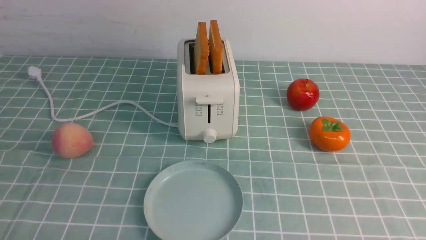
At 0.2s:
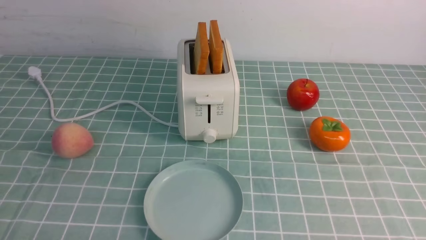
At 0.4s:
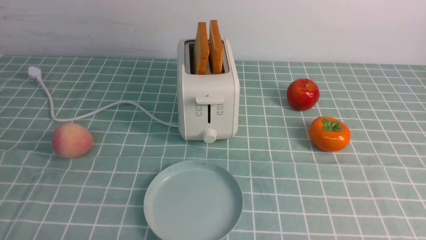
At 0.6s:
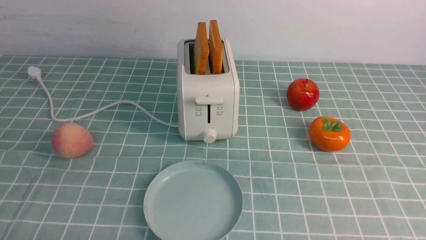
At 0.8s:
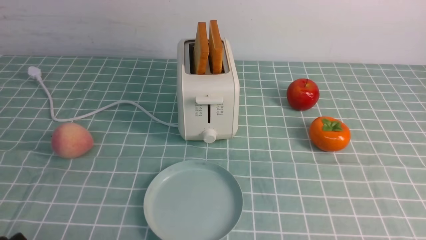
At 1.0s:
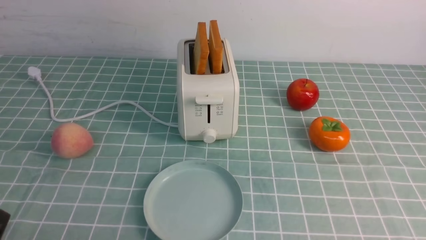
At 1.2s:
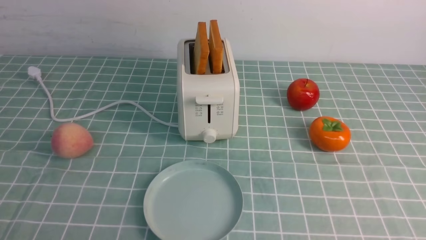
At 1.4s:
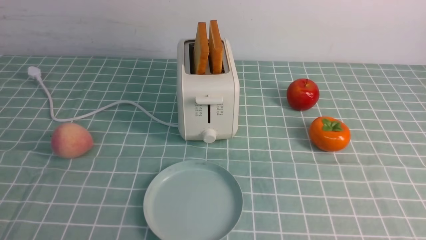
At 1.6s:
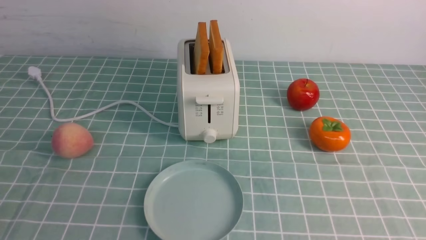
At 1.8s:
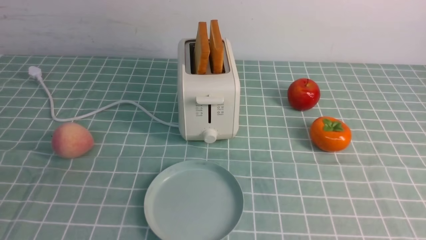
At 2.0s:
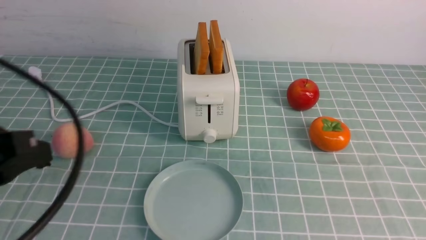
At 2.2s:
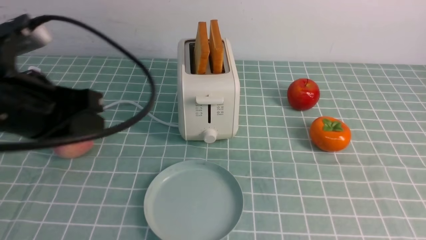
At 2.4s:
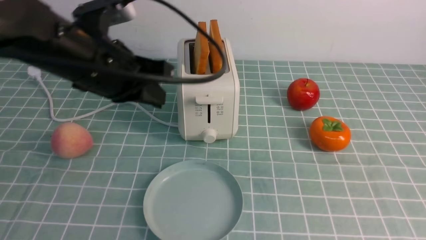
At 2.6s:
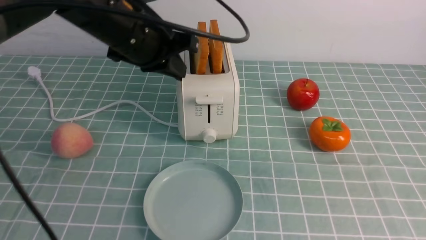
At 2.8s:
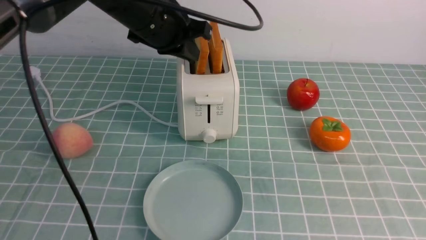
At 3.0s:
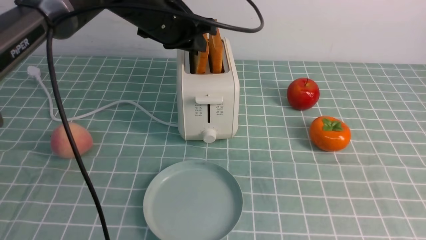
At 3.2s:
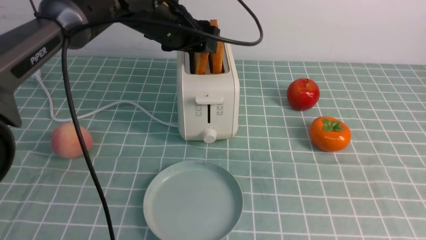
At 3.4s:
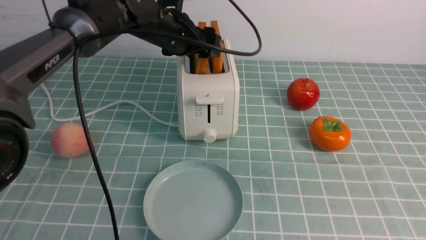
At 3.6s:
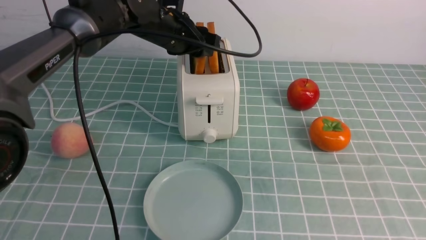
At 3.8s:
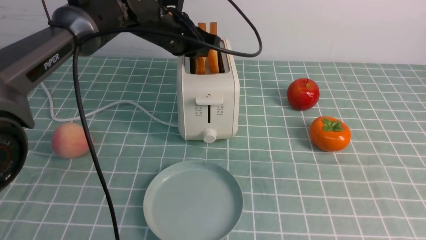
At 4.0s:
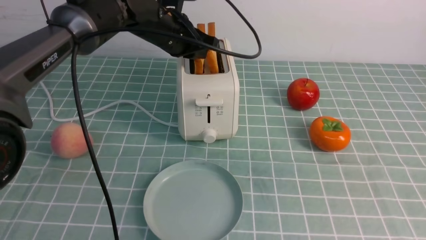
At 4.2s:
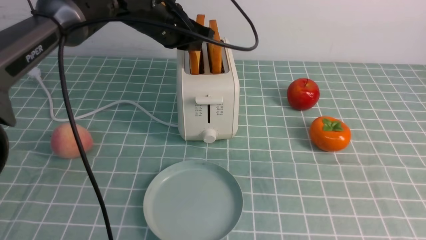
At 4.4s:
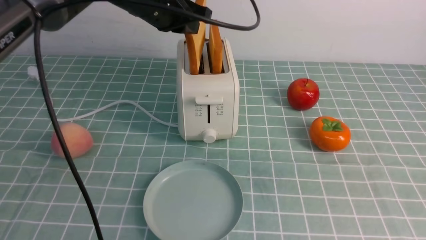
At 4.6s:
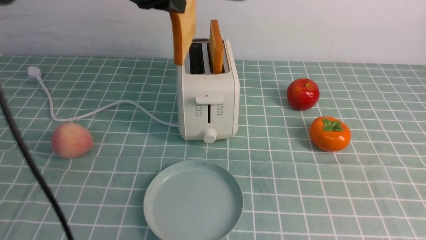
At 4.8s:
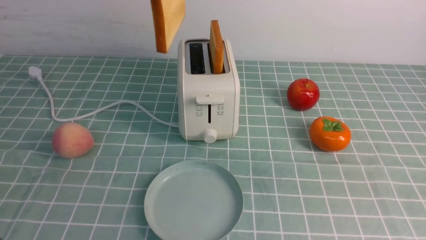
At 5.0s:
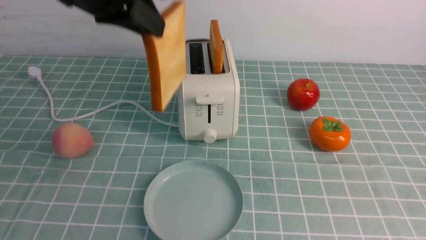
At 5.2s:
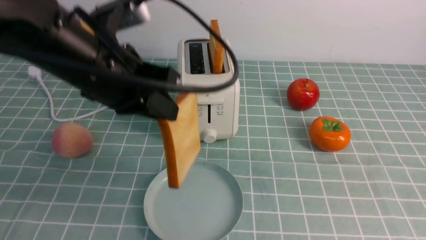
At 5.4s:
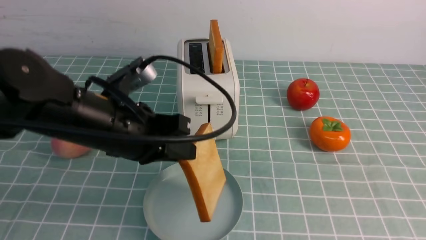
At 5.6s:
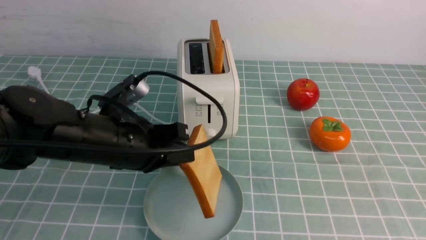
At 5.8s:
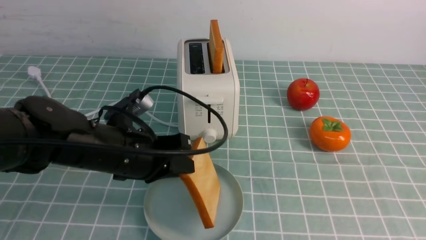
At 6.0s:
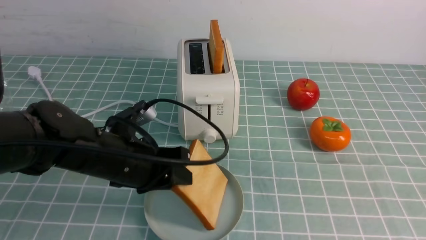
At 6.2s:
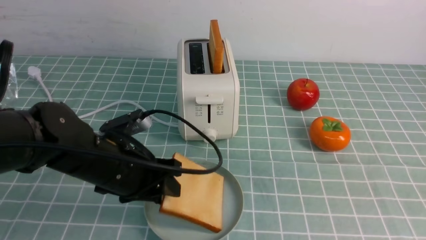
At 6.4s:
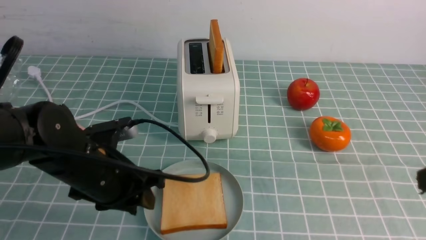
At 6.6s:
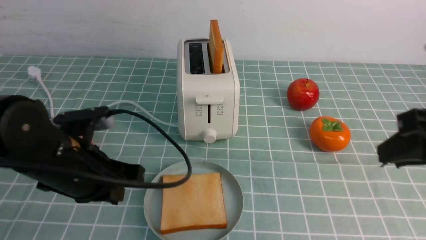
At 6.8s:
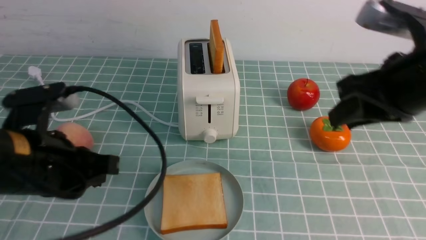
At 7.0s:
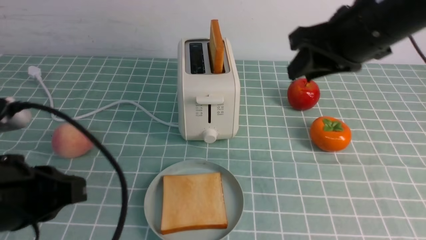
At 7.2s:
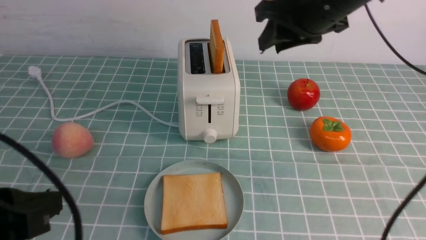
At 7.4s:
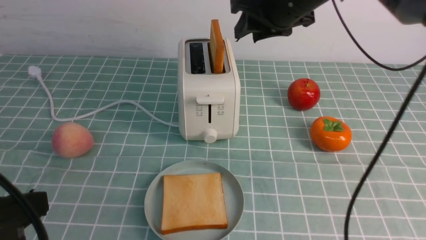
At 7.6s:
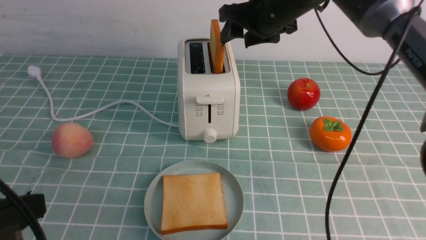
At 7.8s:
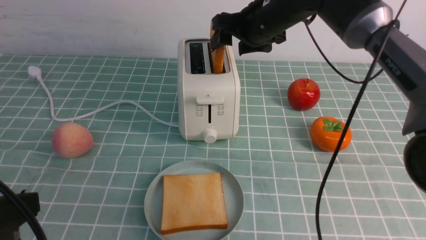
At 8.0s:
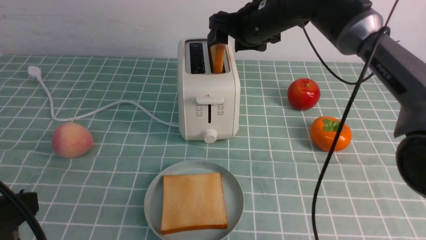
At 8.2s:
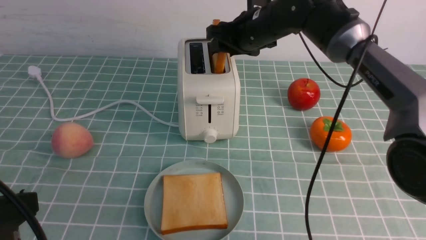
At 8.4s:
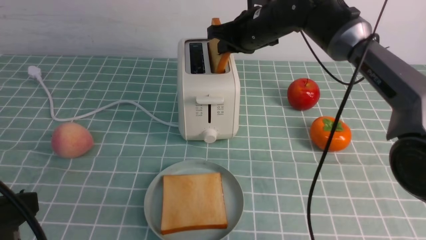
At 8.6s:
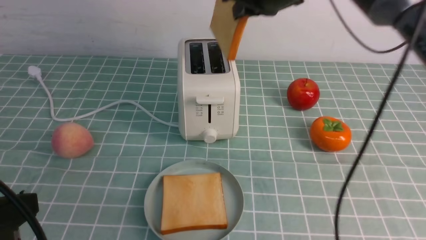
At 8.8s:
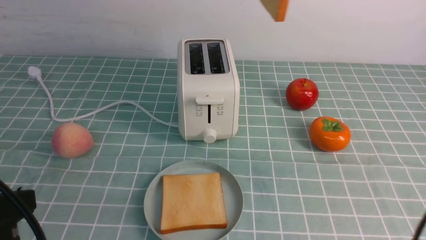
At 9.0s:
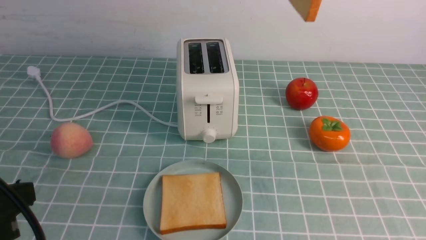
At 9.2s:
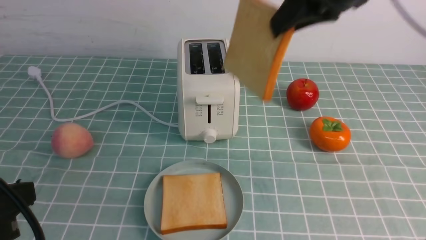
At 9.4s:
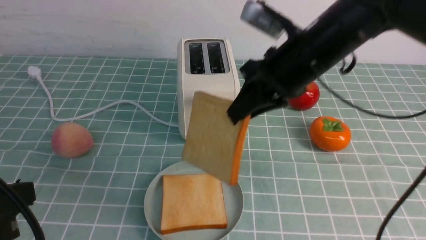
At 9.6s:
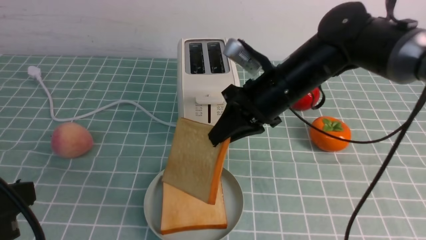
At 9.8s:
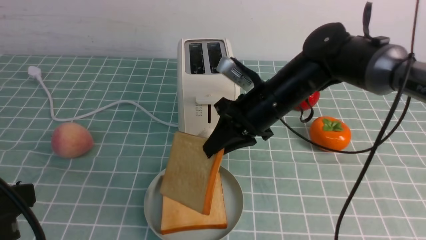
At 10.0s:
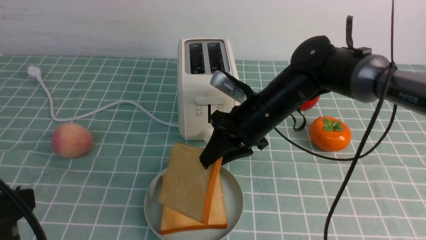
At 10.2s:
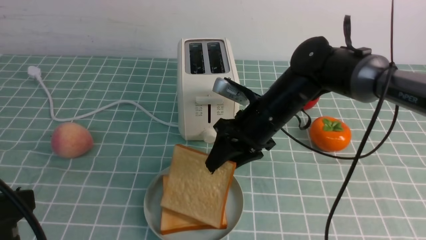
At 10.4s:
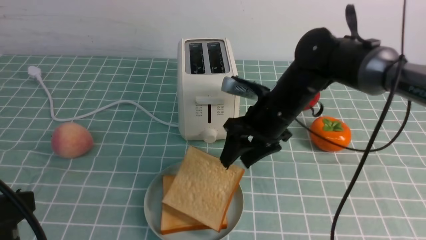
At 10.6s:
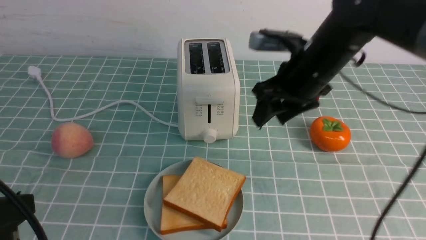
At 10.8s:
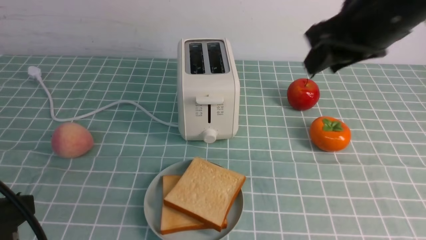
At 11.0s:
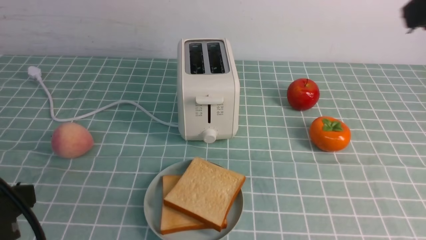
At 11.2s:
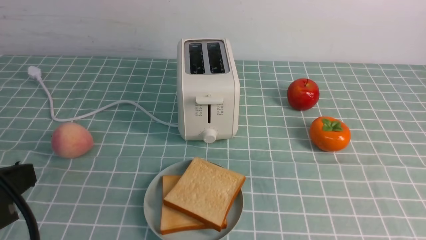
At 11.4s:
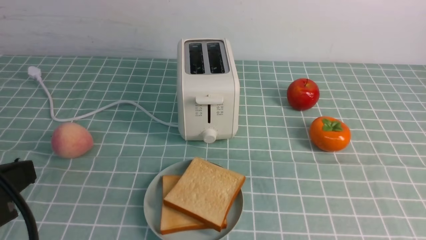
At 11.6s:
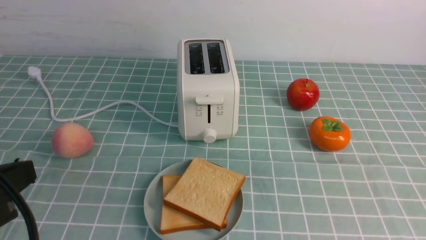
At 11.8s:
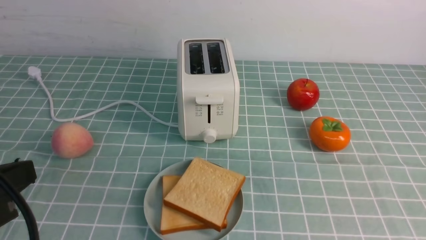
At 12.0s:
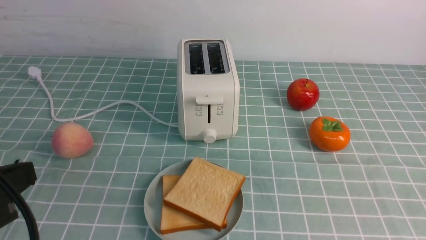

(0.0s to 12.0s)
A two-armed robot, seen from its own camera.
Task of the whole recording: take toasted bread from bread machine on blue coffee table place on plate.
Step, 0.0s - 4.4s: use the left arm to take out a slice of bread.
Step, 4.8s - 6.4s: use the left arm to put a slice of bread into the empty plate.
Step, 6.8s - 8.8s: use the right arm to take out a slice of bread.
Step, 9.0s - 10.6s: use the right arm to put a slice of bread into the plate.
1.6s - 3.0s: The left gripper moves forward and to the right, some 40 cm. The right gripper travels upward by about 15 cm, and closes up.
3.0s - 4.4s: The left gripper opens and closes again.
4.4s - 6.0s: The left gripper goes roughly 20 cm backward and downward.
6.0s - 7.6s: The left gripper goes approximately 25 cm backward, to the left and upward, and closes. The right gripper is displaced forward and to the left by roughly 40 cm, and opens its fingers.
7.6s - 9.0s: The right gripper goes roughly 15 cm upward, backward and to the right, and closes.
9.0s - 10.4s: The right gripper travels downward by about 25 cm, and opens its fingers.
10.4s - 12.0s: The right gripper shifts about 40 cm backward and to the right, and closes up.

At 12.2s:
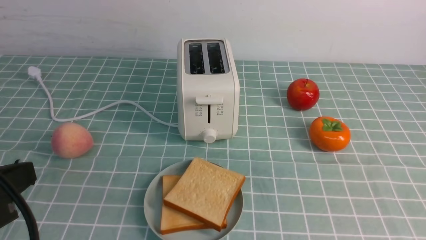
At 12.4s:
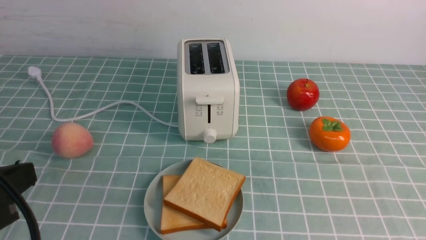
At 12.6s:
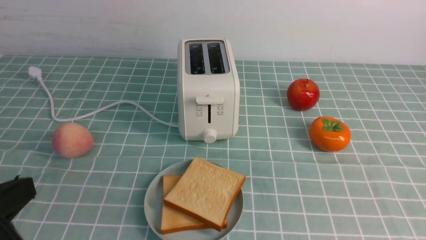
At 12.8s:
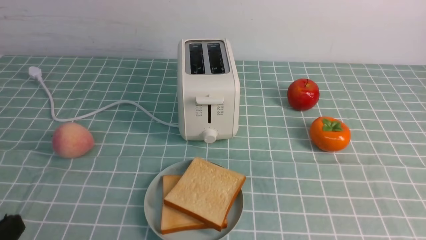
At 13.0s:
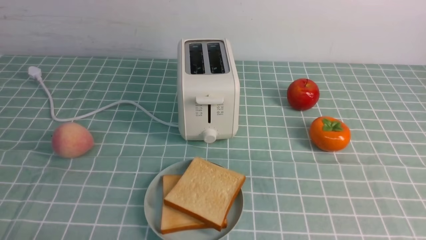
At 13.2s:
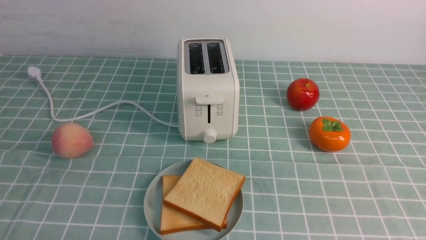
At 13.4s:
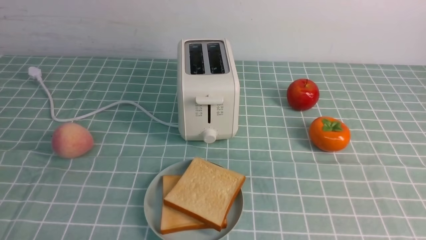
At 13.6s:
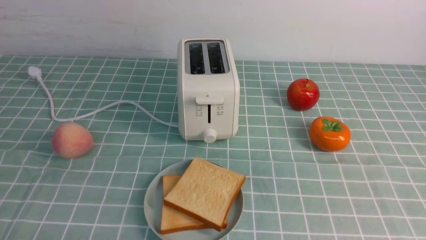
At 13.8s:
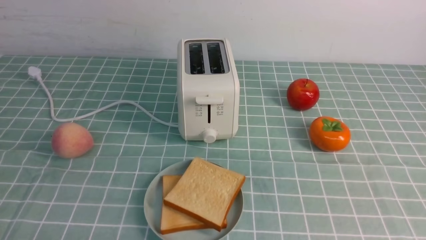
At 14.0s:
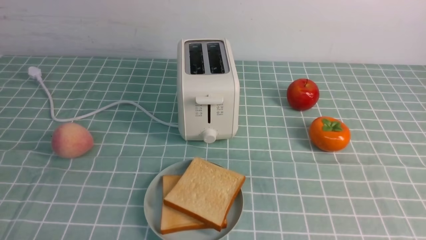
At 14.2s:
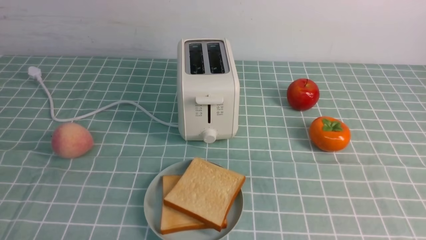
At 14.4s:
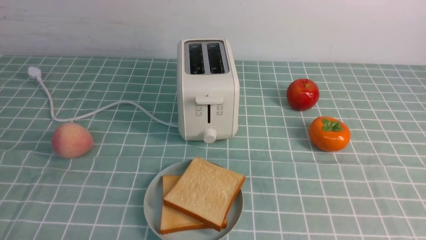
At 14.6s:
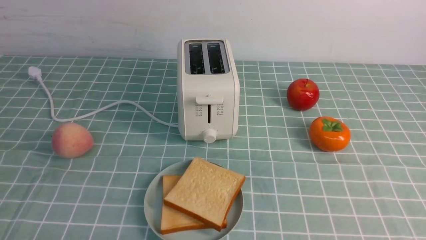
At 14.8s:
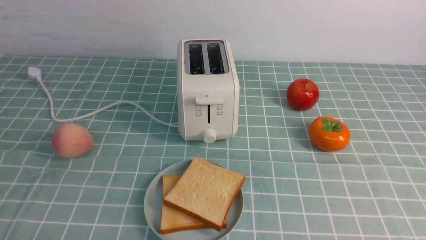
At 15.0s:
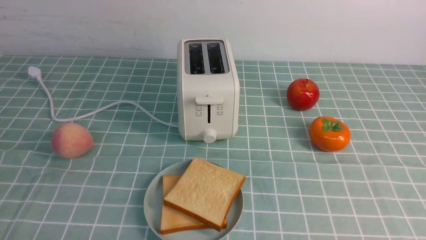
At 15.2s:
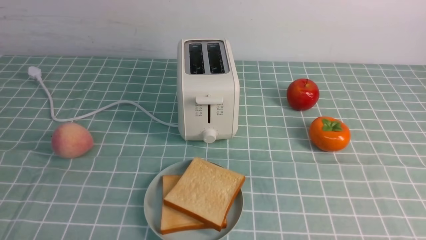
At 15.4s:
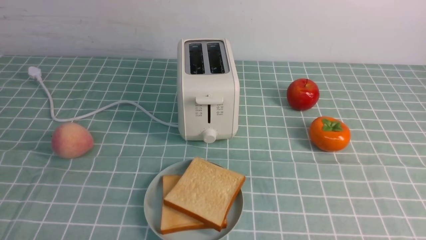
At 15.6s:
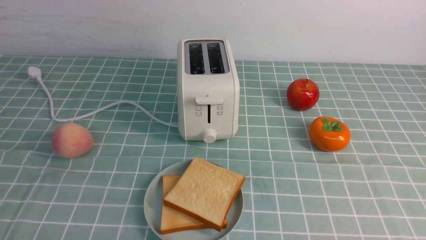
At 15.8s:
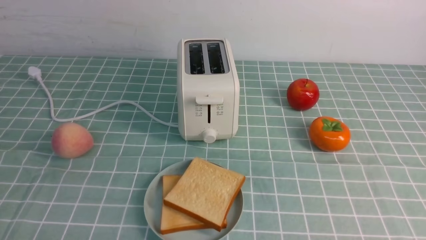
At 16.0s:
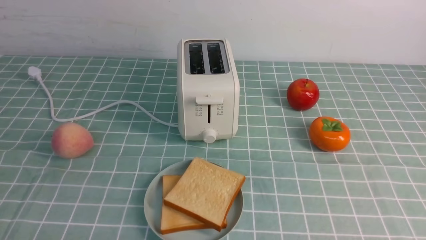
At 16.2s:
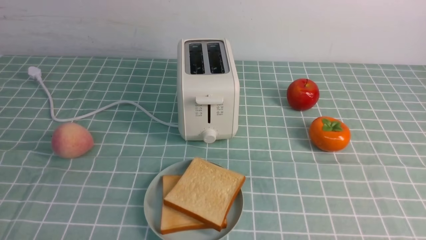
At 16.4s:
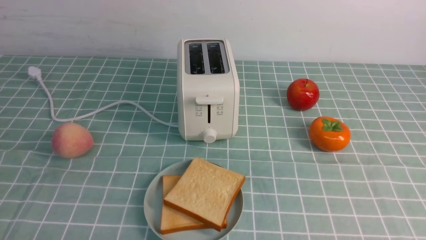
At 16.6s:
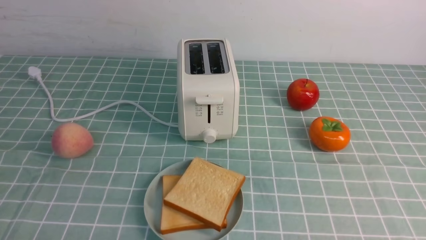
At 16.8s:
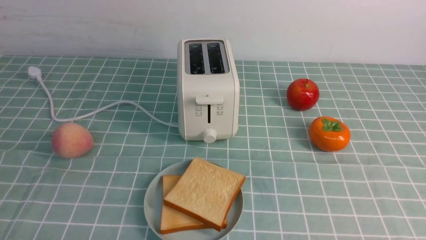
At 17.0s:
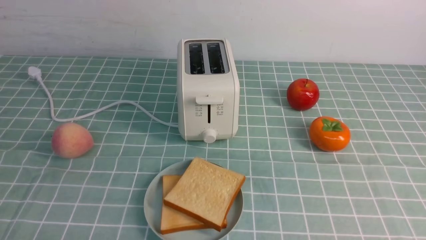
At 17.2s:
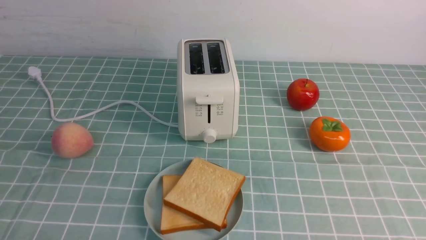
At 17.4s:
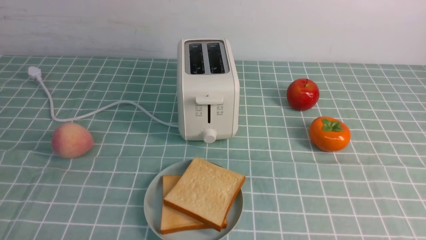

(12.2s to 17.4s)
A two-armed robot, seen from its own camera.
Task of the whole recording: take toasted bread from bread machine on blue coffee table place on plate.
12.2s - 14.0s: The left gripper travels downward by some 15 cm.
15.6s - 17.4s: Both grippers stay put.
